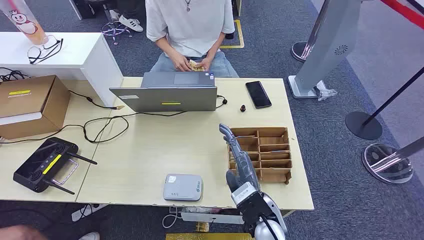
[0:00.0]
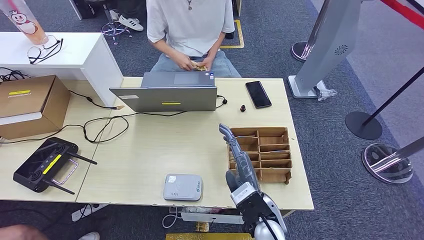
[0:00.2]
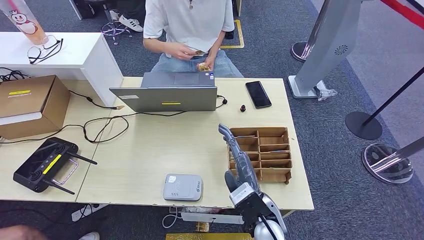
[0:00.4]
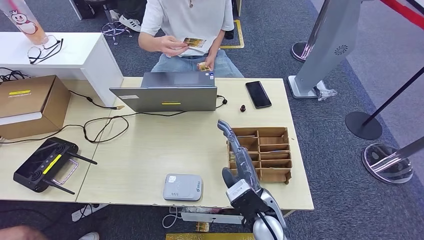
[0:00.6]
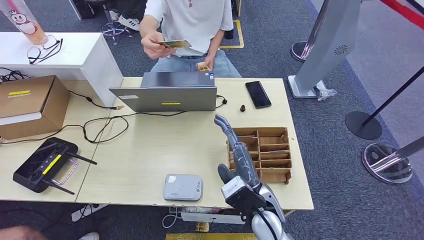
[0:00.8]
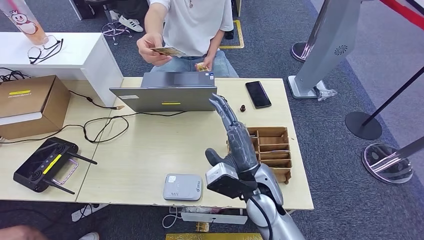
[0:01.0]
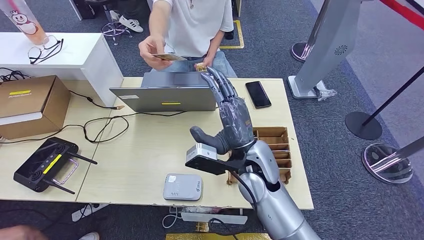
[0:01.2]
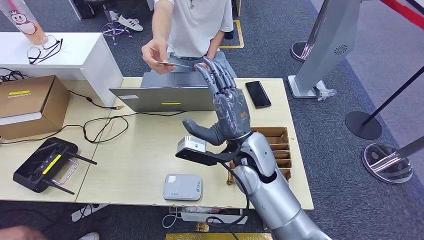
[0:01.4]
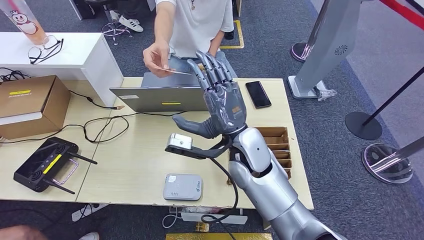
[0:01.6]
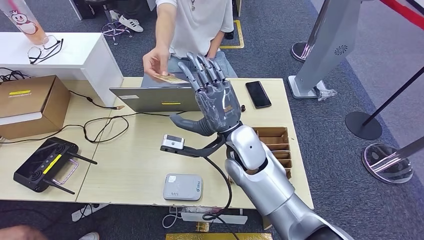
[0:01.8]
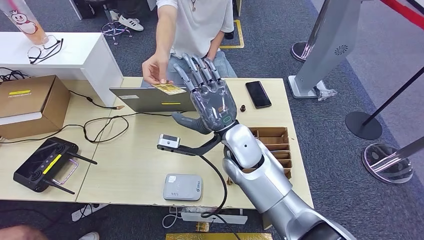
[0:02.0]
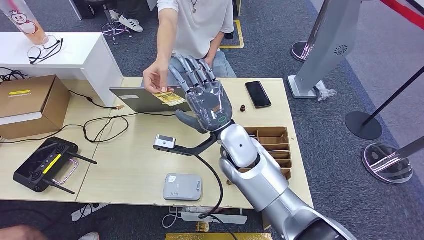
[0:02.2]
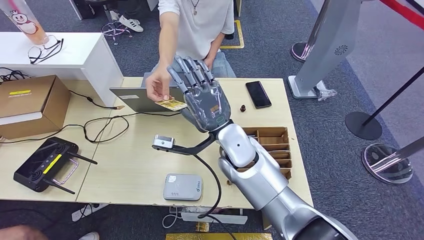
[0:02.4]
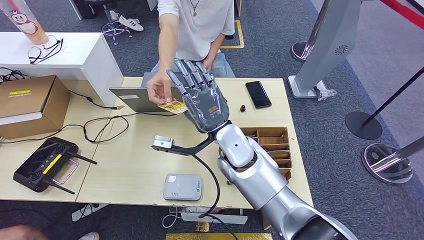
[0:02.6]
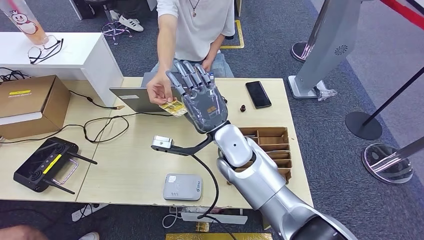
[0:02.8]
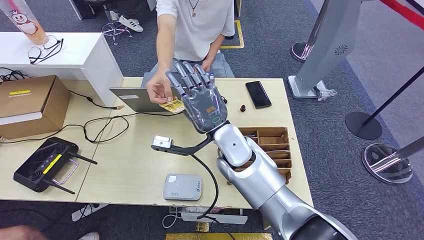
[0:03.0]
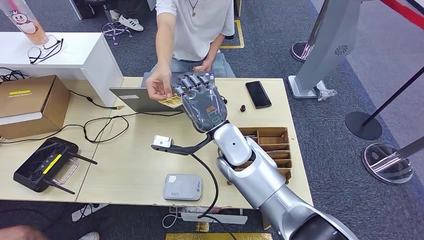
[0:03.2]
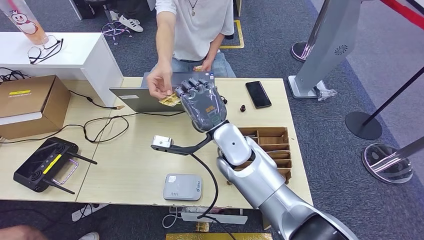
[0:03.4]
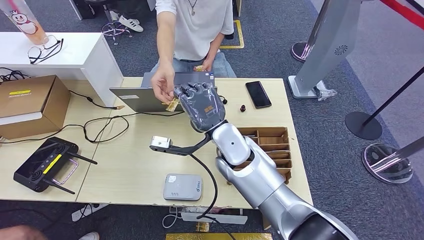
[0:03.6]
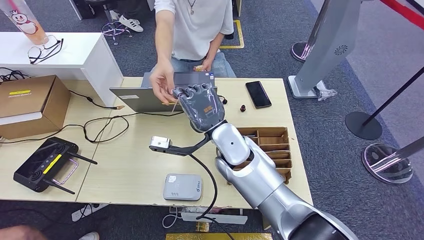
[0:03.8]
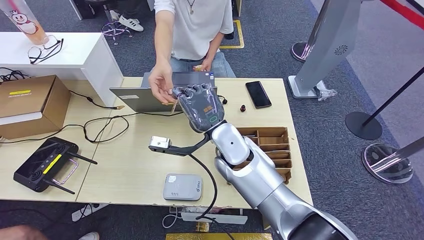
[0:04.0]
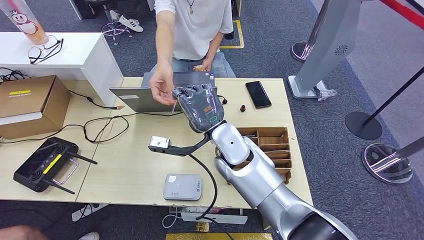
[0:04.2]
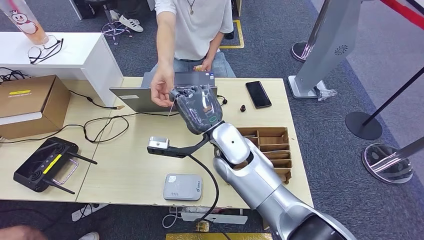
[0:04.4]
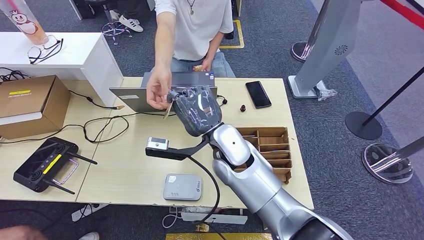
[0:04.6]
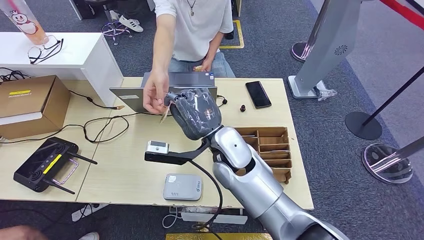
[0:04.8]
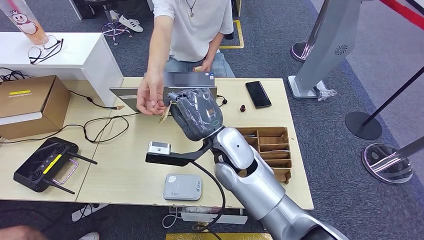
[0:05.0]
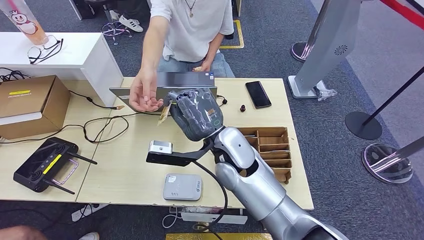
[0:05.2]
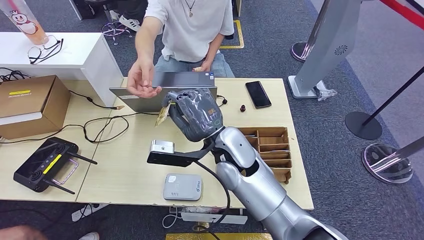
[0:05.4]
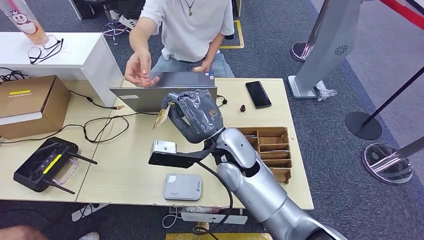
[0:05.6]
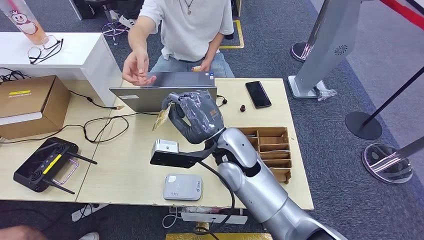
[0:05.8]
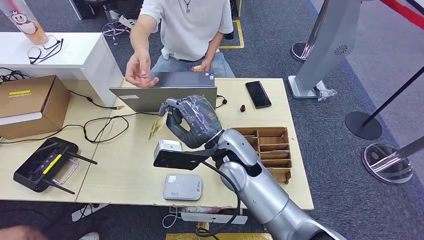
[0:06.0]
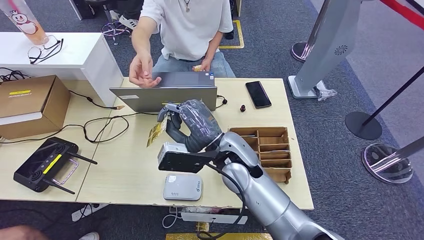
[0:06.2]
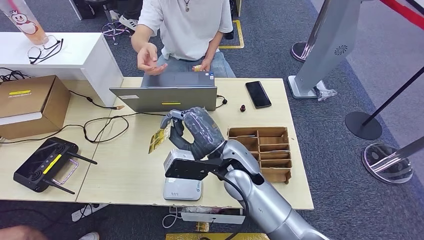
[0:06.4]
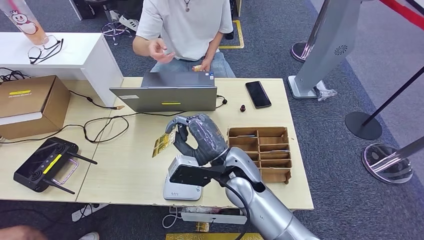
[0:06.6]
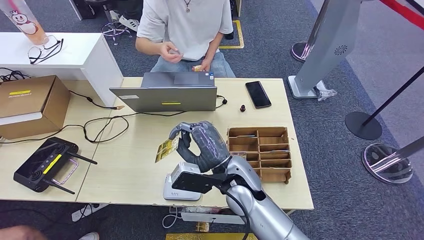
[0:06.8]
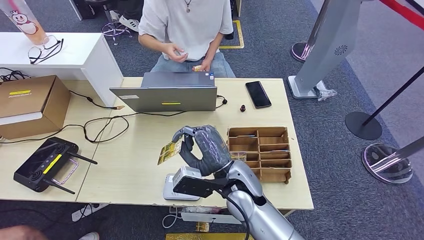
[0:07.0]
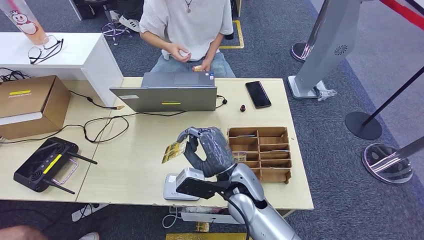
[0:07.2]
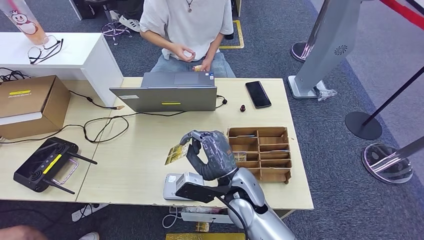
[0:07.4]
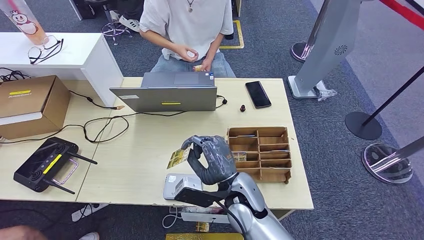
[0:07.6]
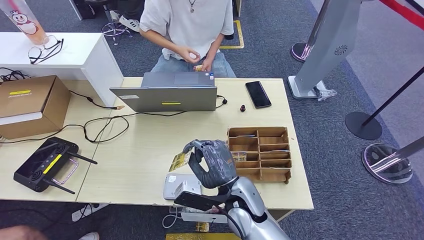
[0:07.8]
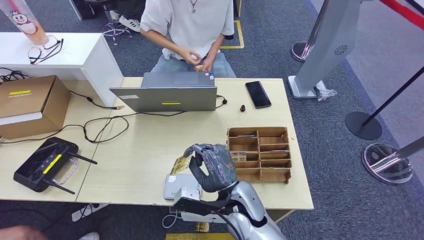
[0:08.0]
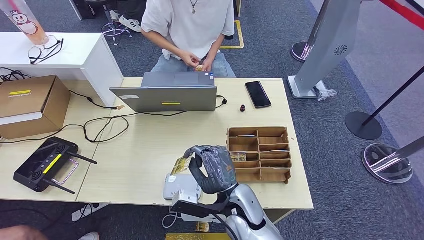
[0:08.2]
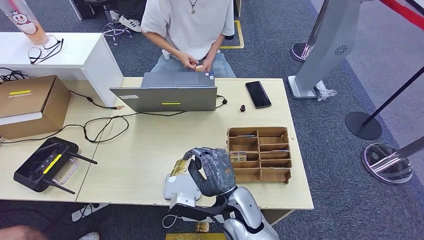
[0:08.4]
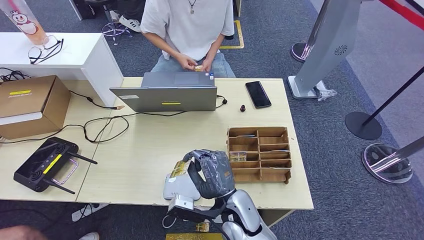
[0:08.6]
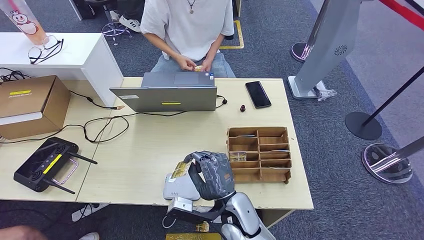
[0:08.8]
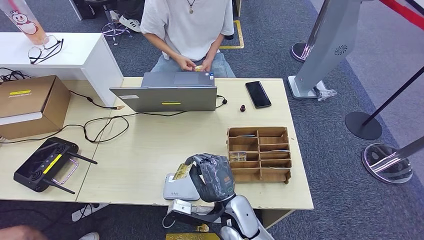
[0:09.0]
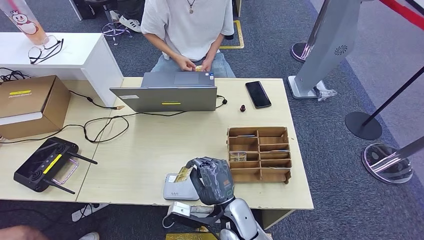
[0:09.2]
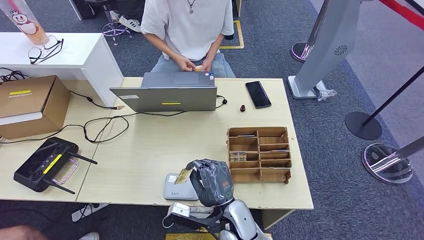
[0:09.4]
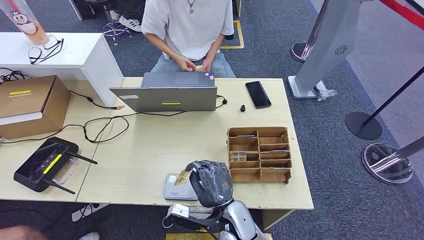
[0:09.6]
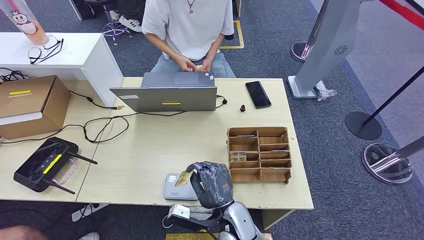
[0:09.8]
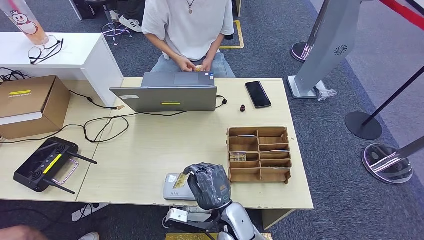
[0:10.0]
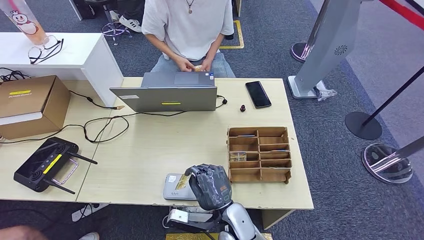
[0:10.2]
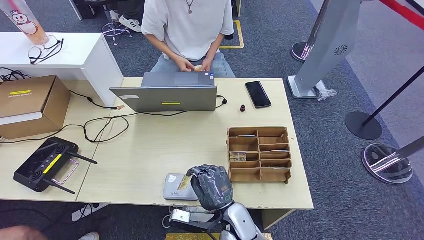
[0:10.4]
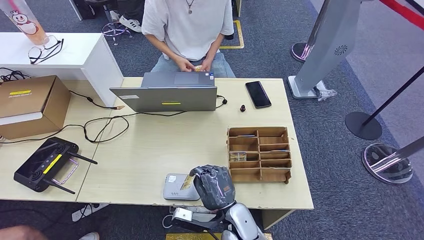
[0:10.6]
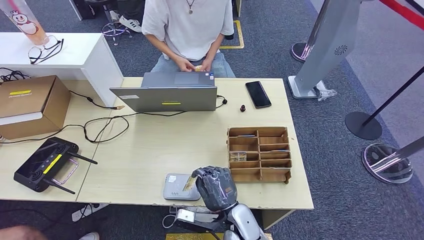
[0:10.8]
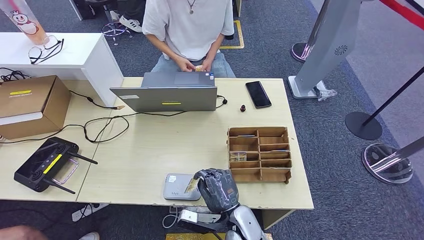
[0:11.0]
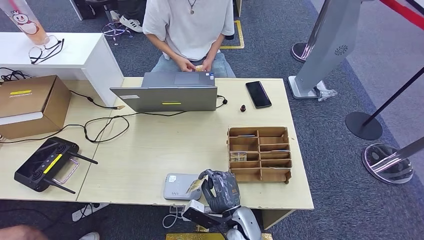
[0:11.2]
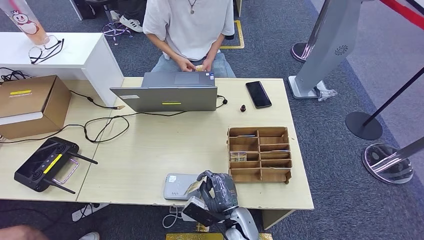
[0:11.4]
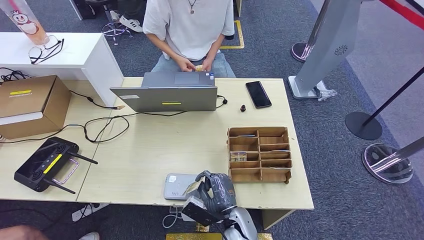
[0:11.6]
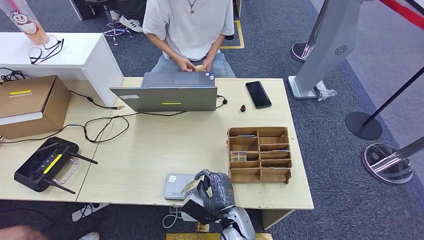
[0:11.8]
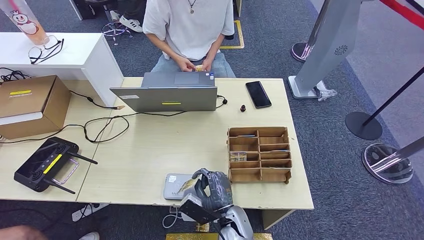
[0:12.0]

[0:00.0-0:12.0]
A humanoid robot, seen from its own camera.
Step, 0:00.0 to 0:05.2: Take the ID card from the person's hand.
0:03.0 to 0:04.4: There are only small adjustments of the hands.
0:06.0 to 0:07.6: The right hand is displaced downward and backward by approximately 10 cm.
0:07.6 to 0:09.0: The right hand shifts by some 5 cm.
0:09.0 to 0:10.4: The hands make only small movements.

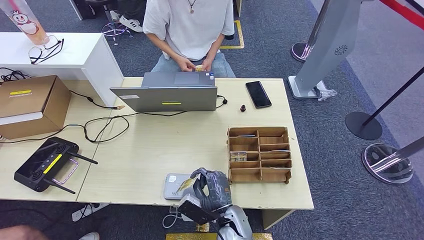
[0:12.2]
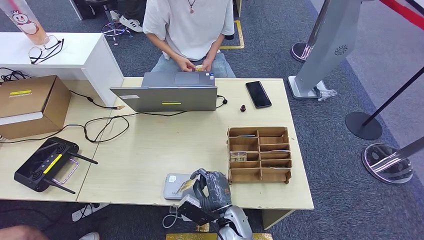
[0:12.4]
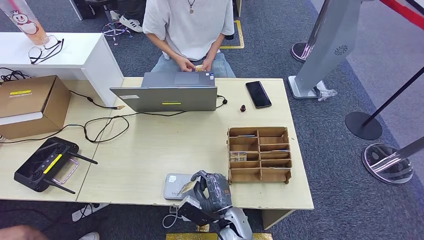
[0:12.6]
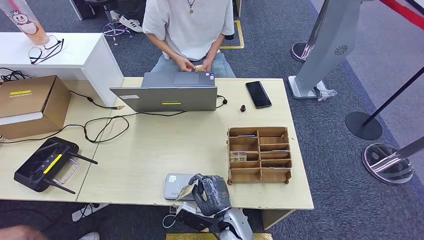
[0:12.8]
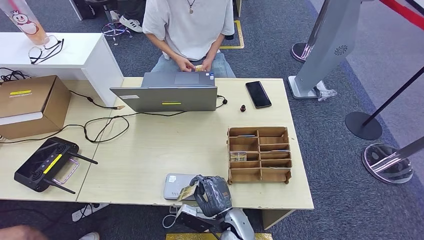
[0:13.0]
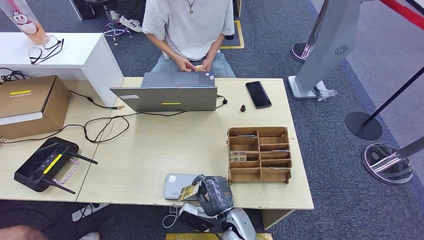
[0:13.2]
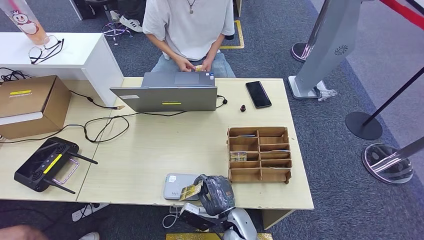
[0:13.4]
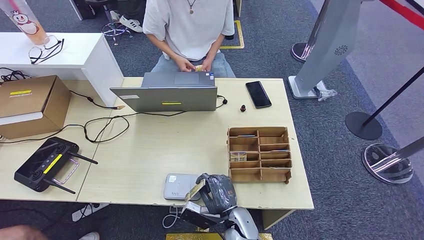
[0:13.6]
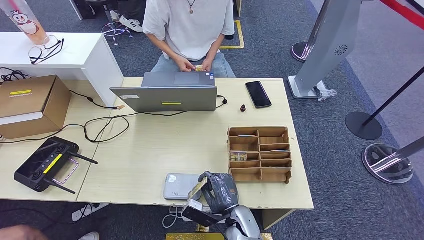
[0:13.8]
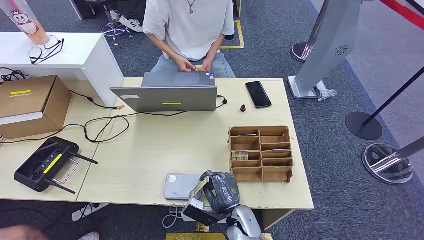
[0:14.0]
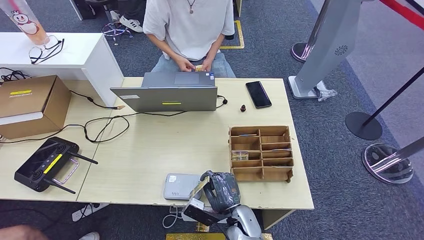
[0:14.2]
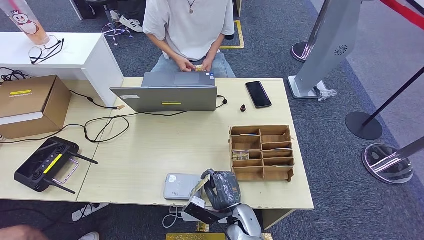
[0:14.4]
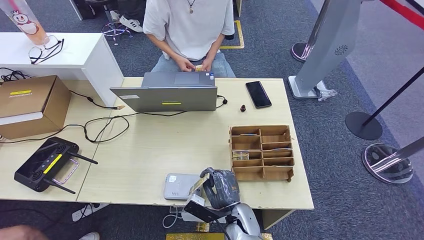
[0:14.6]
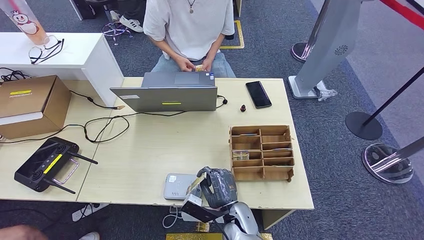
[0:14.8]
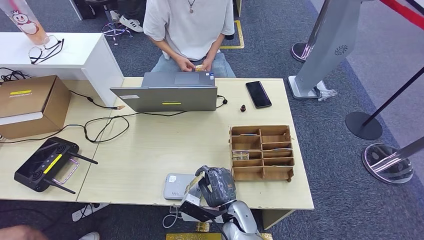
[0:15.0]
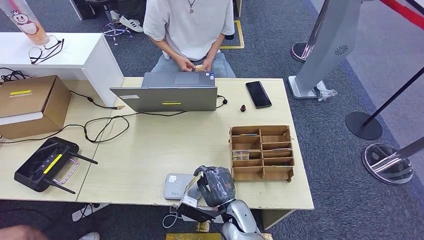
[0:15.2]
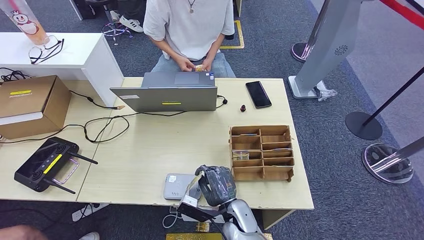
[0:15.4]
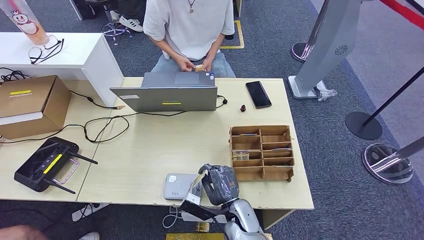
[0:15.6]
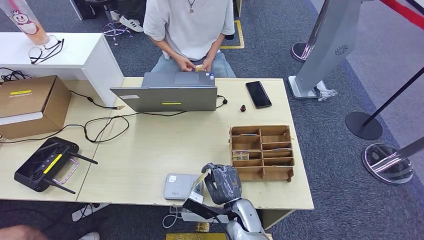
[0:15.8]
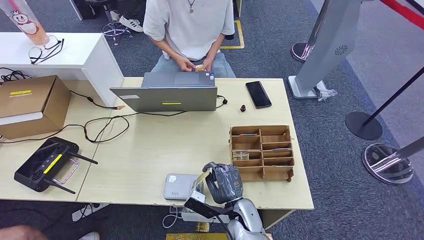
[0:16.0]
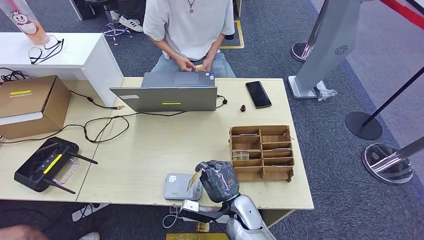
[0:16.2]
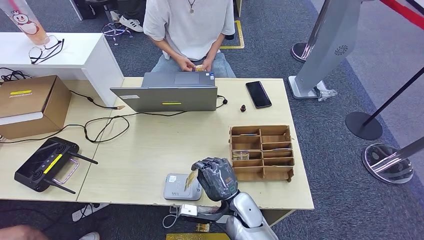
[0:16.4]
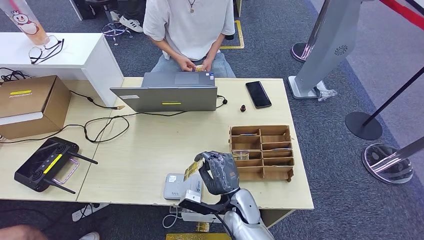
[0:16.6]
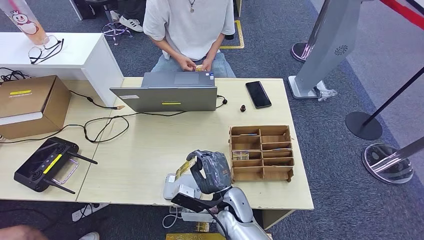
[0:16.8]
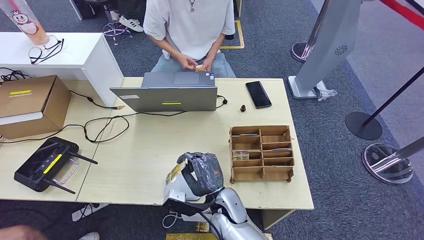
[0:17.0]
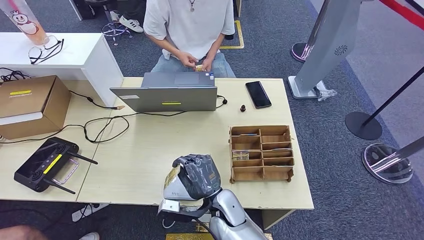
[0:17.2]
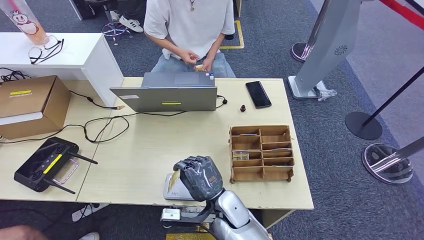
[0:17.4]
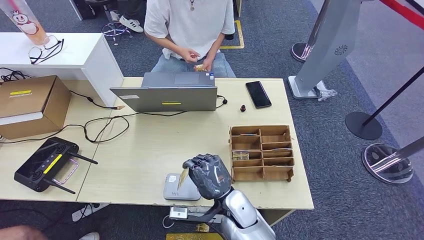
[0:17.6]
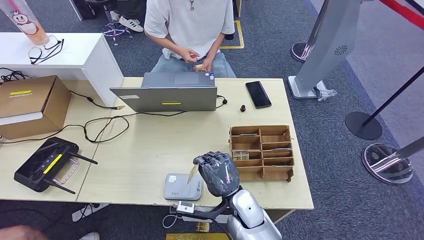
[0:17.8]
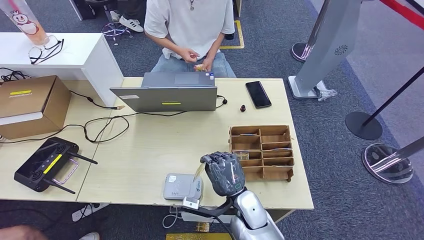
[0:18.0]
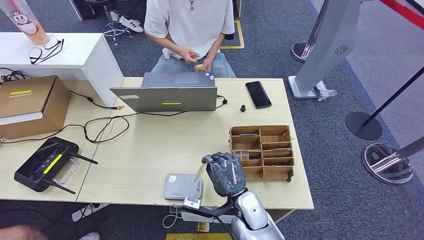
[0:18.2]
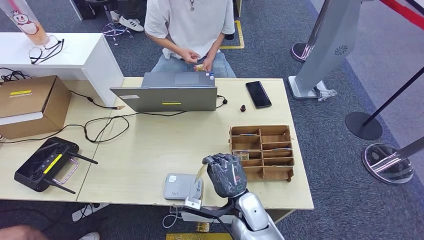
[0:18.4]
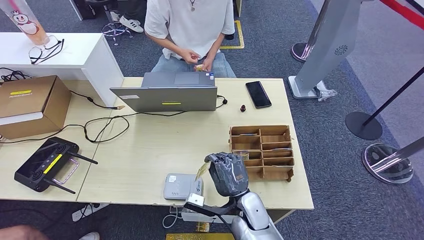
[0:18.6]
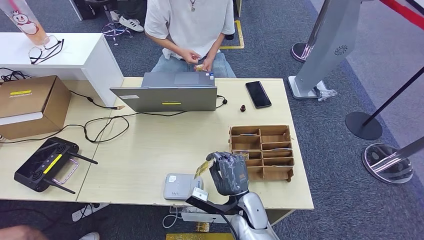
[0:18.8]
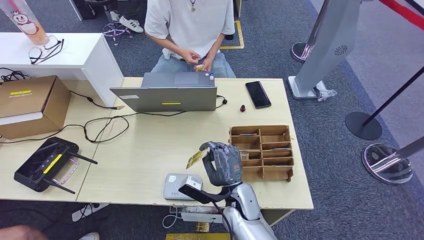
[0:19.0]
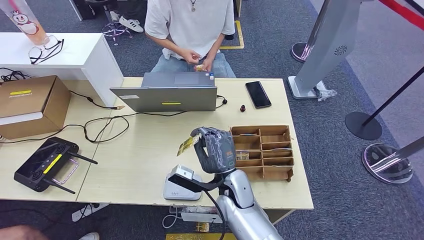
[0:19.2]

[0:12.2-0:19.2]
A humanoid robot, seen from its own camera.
0:12.2 to 0:15.0: The hands make only small movements.
0:16.4 to 0:17.8: The hands stay close to where they were, moving slightly.
0:17.8 to 0:19.2: The right hand moves about 5 cm.
